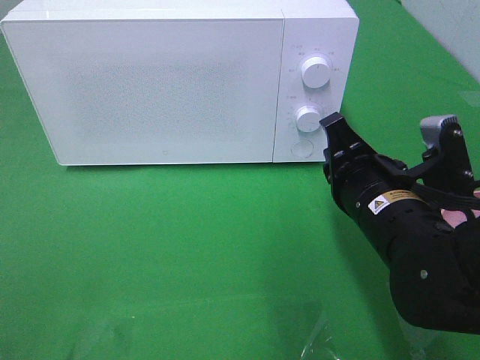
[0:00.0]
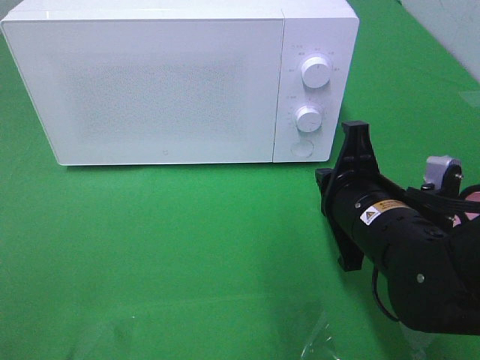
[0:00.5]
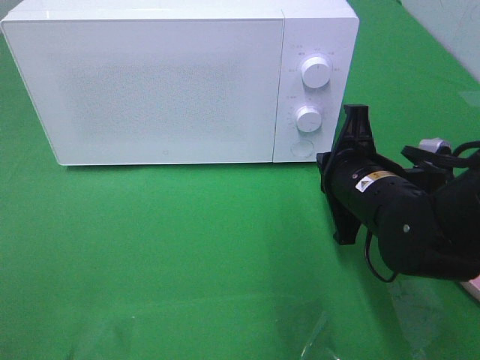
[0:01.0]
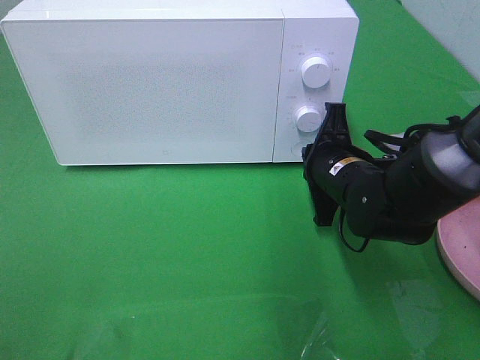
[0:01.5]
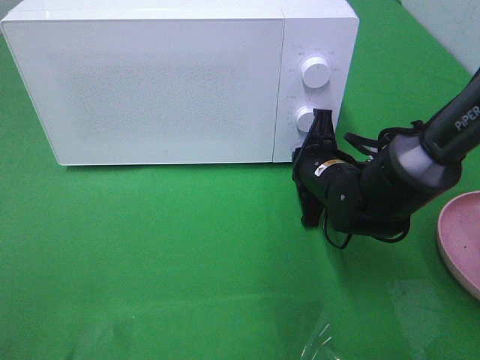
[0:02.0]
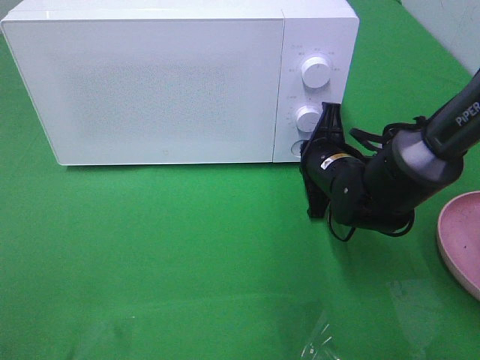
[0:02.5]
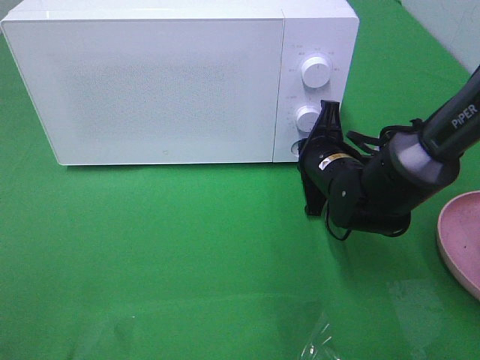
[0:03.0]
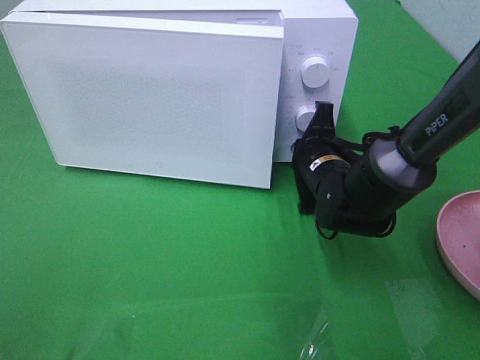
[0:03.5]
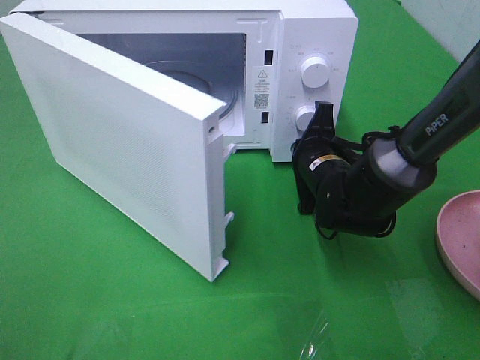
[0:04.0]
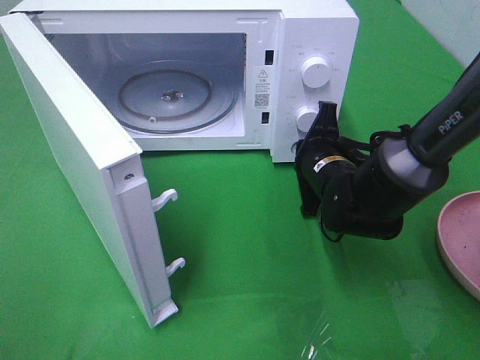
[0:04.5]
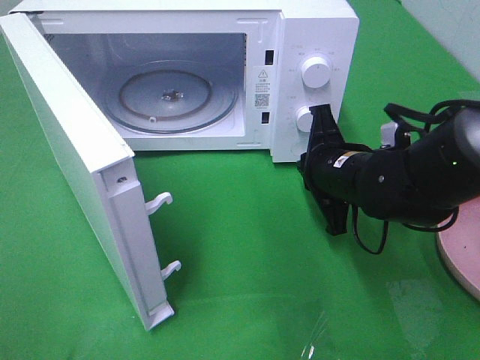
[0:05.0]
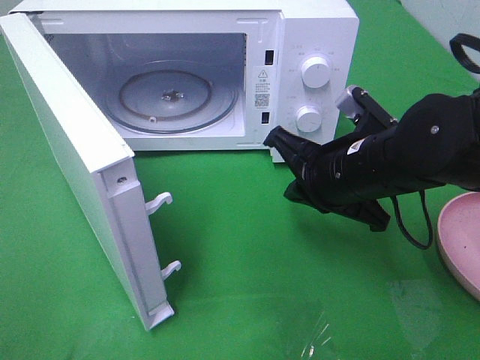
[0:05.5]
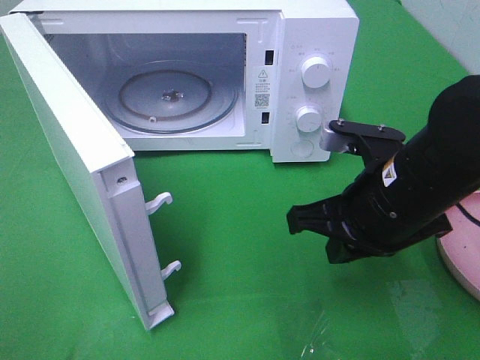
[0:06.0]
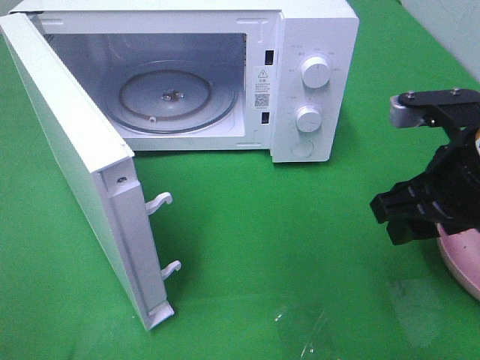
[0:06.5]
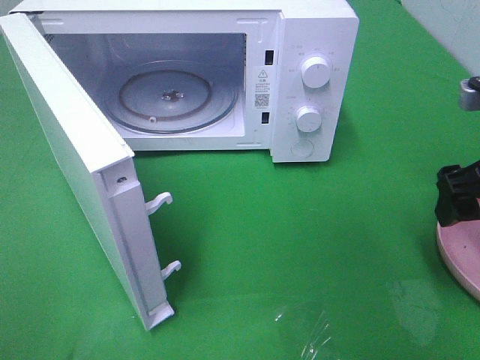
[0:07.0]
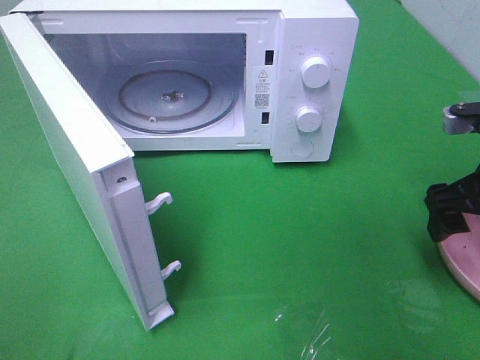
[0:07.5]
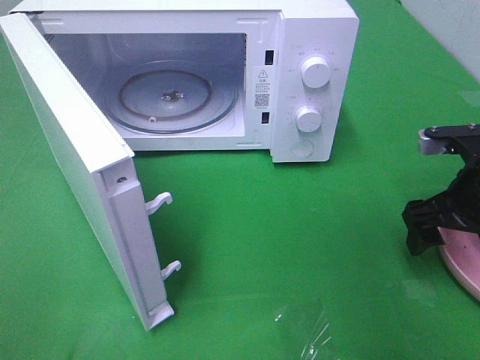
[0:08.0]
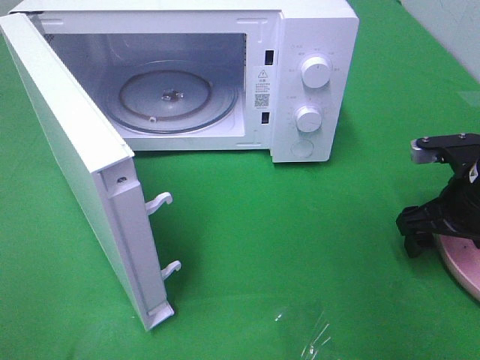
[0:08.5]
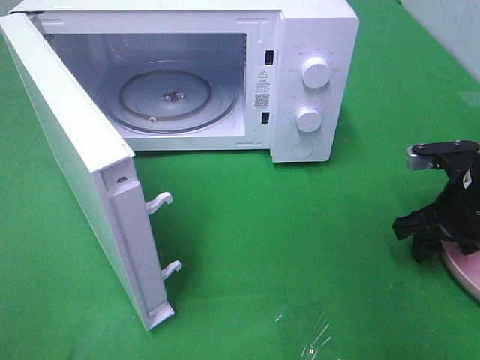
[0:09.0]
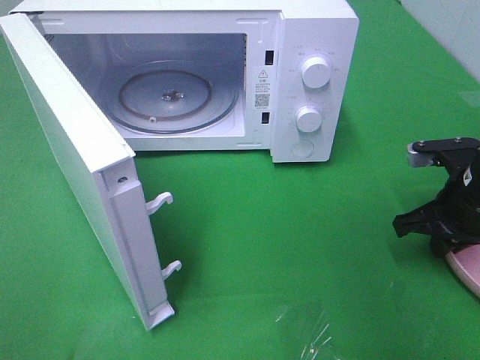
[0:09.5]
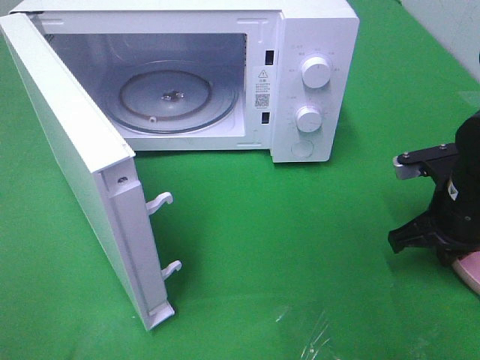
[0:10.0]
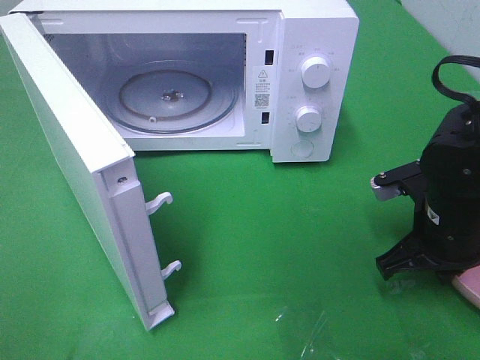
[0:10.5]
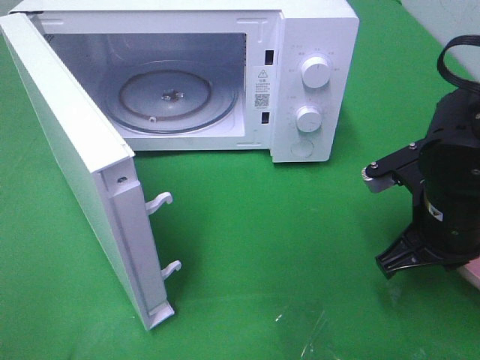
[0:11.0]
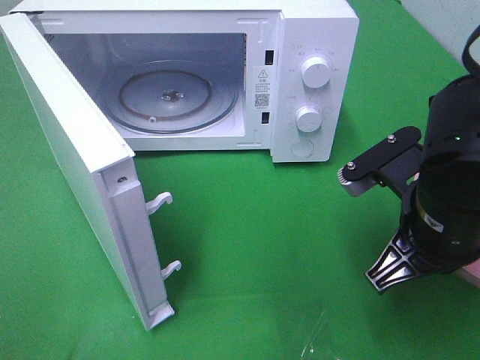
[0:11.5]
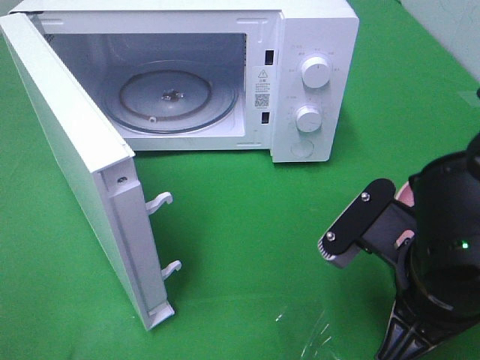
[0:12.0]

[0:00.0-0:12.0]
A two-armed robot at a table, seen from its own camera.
Task of the whole recording: Heat the burger.
Step, 0:00.0 to 0:05.0: Right hand: press the switch.
Step, 0:05.5 to 0:10.0: Right hand: grab the plate with the hamburger.
0:00.0 to 0:02.0: The right gripper goes approximately 15 cm forward and downward.
0:04.0 to 0:06.0: The right gripper travels backward and upward by roughly 15 cm.
0:06.0 to 0:08.0: The right gripper travels to the right by roughly 15 cm, and opens its fingers.
0:08.0 to 0:10.0: The right gripper closes its fingers.
0:10.0 to 0:12.0: The right gripper shifts some 15 cm backward, to the left and upward.

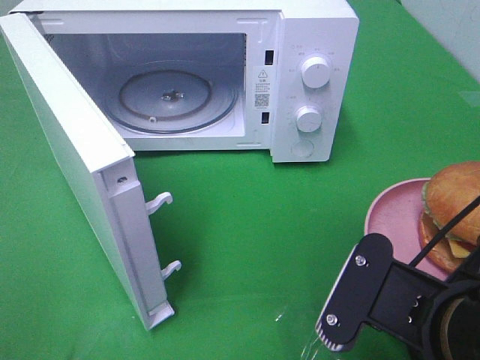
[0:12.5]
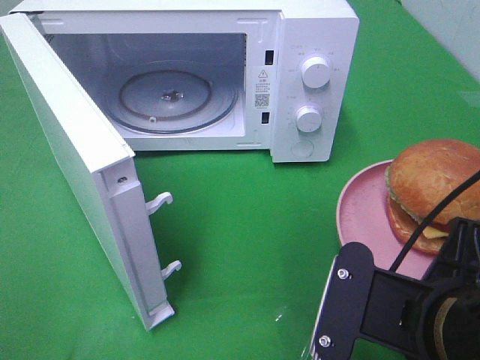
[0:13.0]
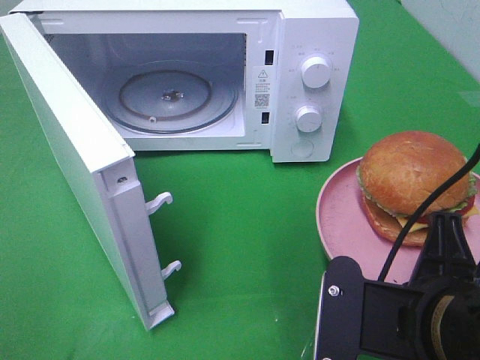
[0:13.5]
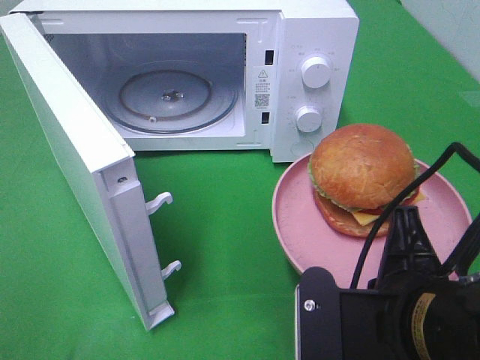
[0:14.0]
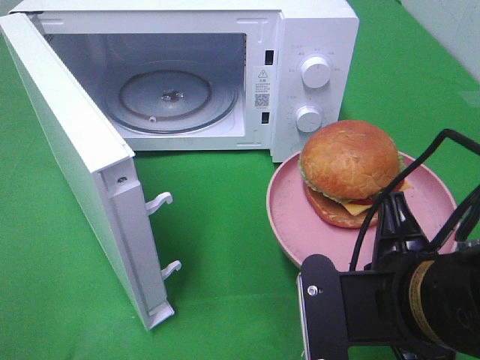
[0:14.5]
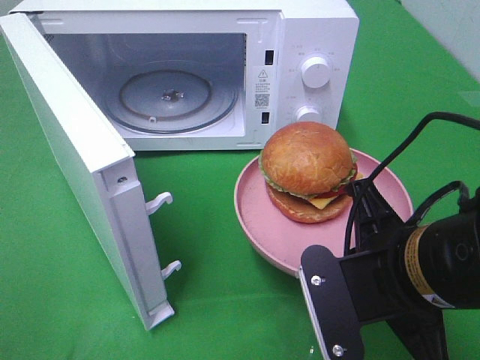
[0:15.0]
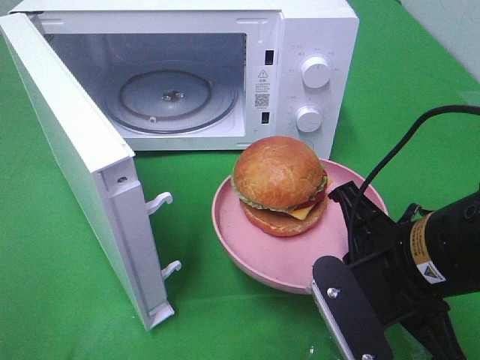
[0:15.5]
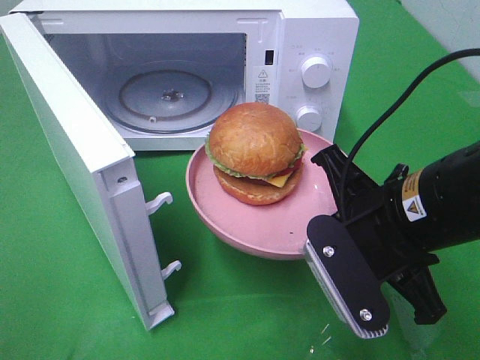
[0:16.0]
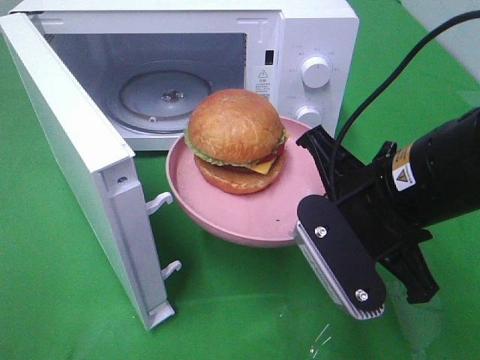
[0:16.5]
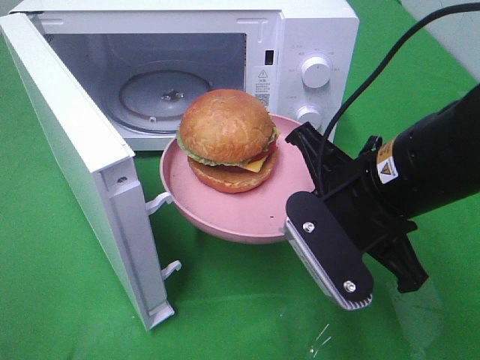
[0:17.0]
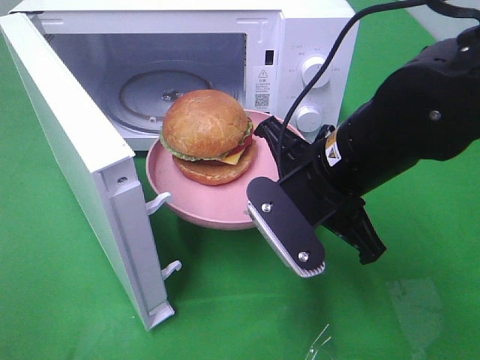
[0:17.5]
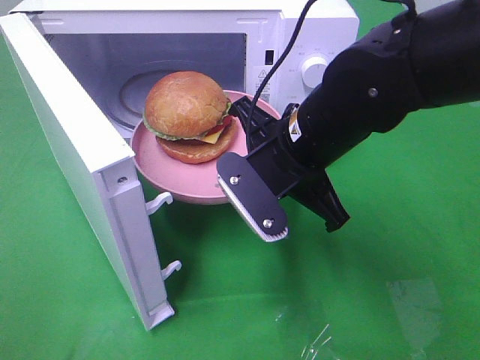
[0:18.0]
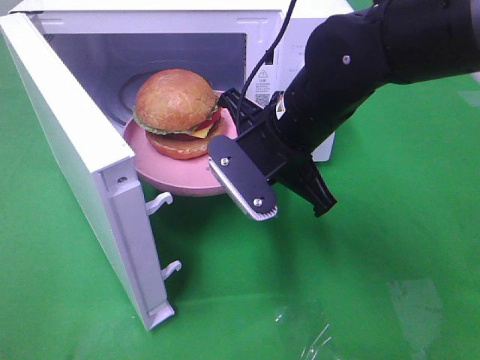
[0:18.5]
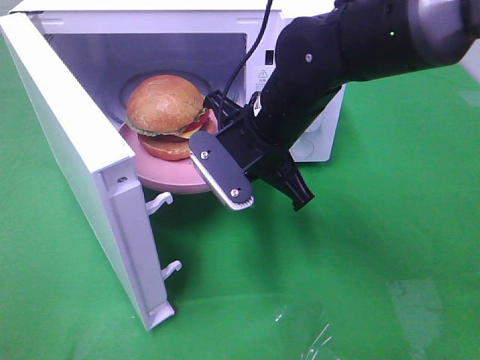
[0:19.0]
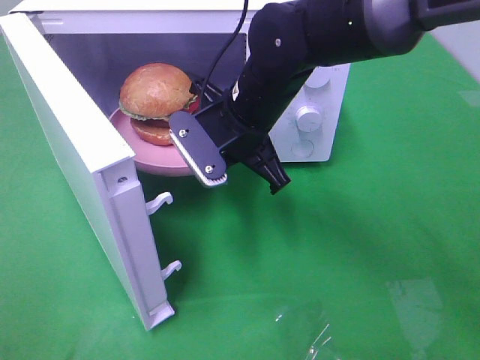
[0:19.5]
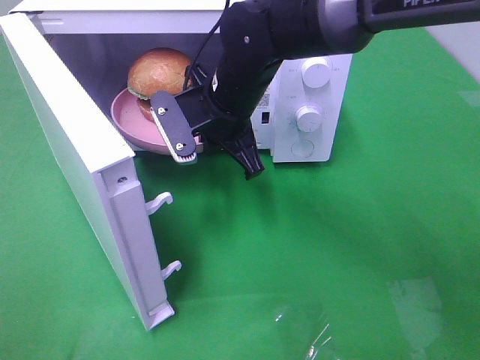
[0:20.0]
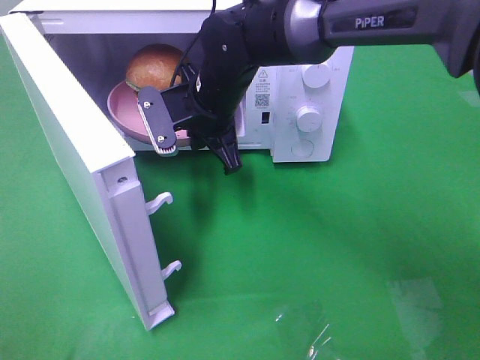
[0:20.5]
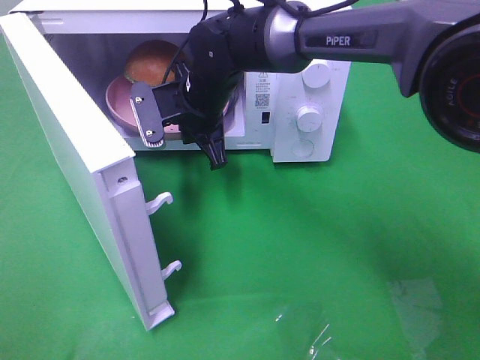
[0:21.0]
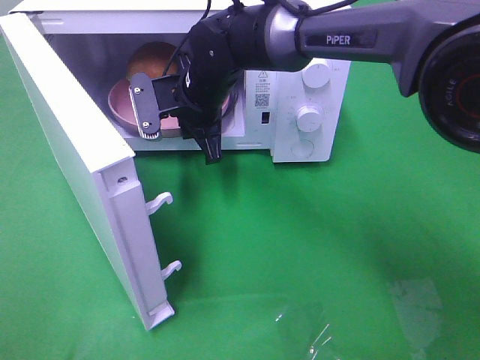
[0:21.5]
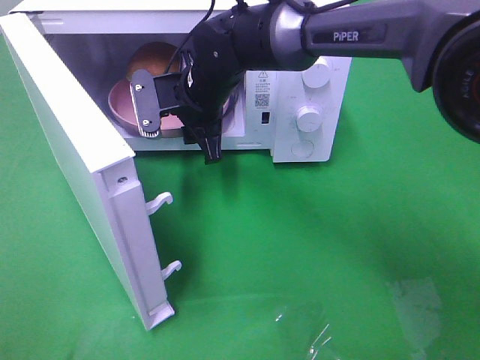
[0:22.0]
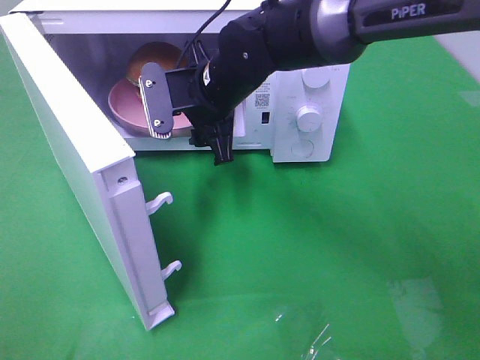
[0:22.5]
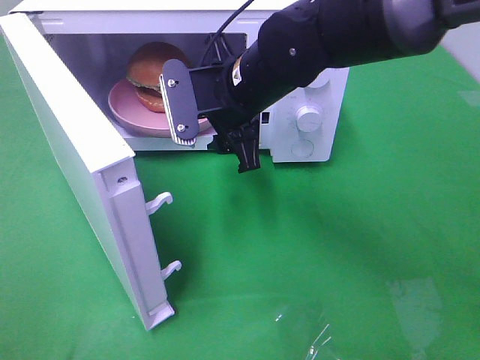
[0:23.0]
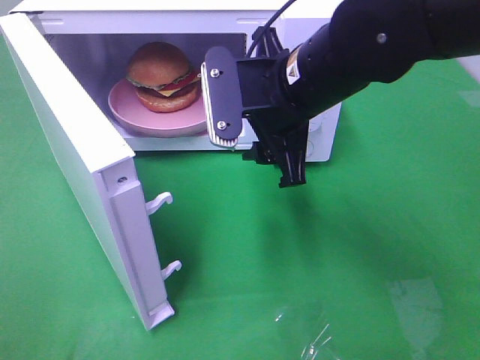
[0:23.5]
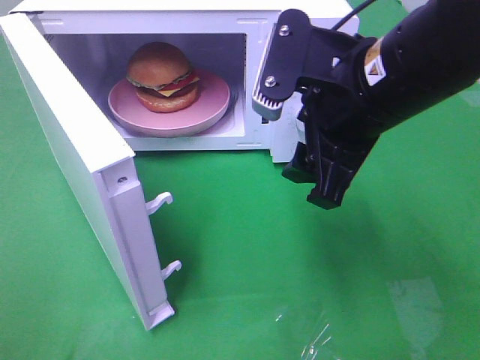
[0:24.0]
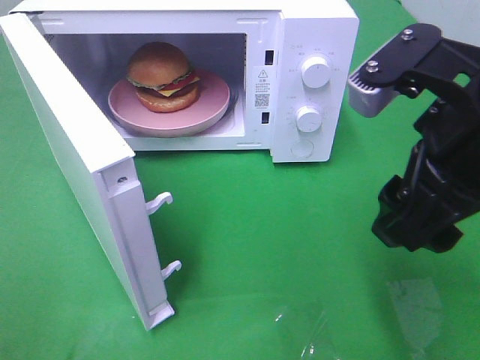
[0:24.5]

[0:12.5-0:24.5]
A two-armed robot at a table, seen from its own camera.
Task of the whole recording: Heat the burger.
Step, 0:12.5 to 0:22.0: Right hand: place the plate in the microwave.
0:14.5 to 0:16.5: The right gripper goes roughly 10 cm forward.
0:16.5 to 0:18.5: The right gripper heads forward and to the left, covering some 10 cm.
0:18.5 to 0:20.5: The right gripper moves forward and to the left, roughly 15 cm.
0:20.5 to 0:22.5: The right gripper opens its fingers.
0:22.5 to 0:24.5: The right gripper travels backward, to the right and upward by roughly 30 cm.

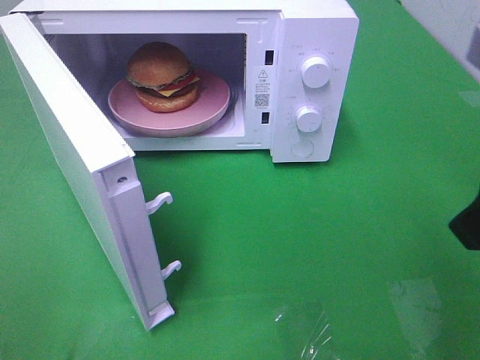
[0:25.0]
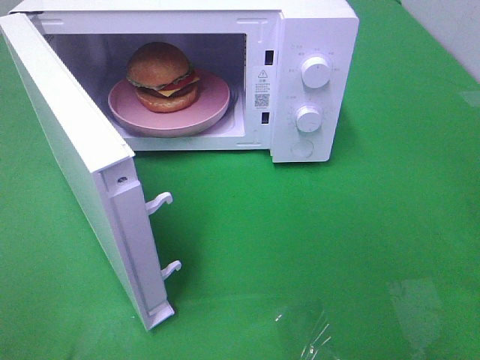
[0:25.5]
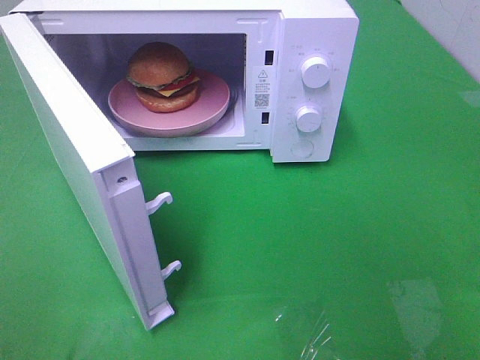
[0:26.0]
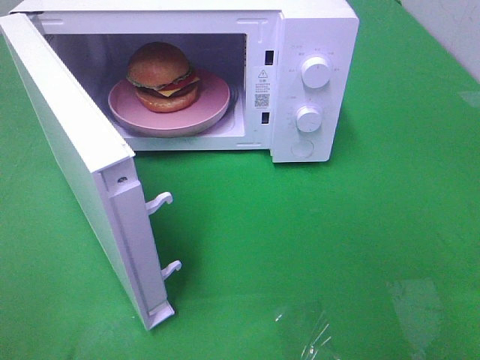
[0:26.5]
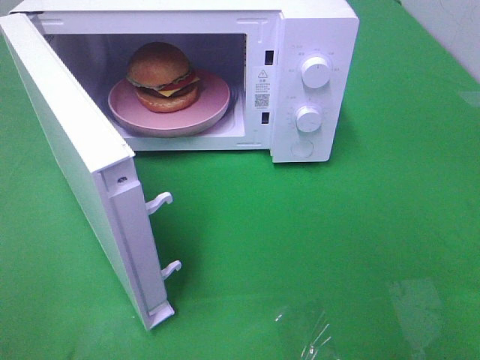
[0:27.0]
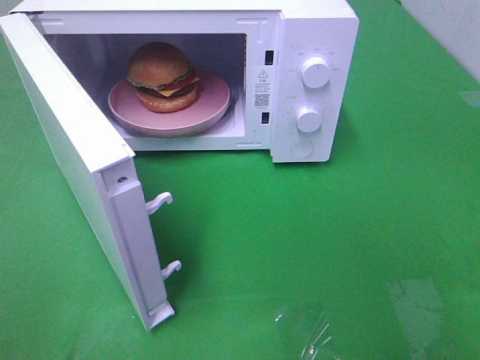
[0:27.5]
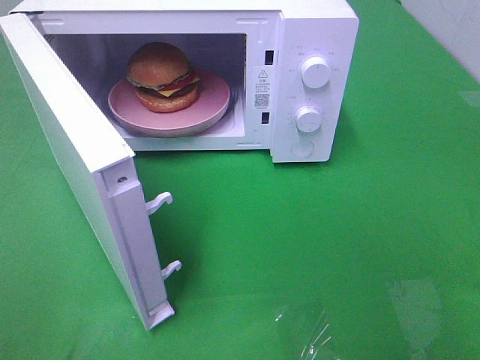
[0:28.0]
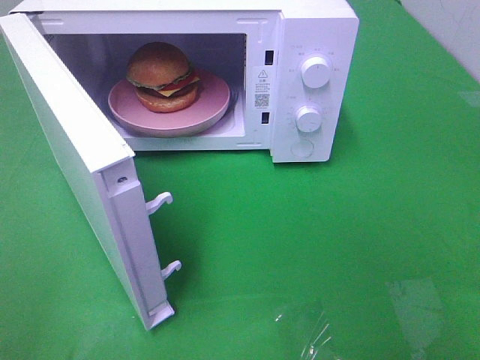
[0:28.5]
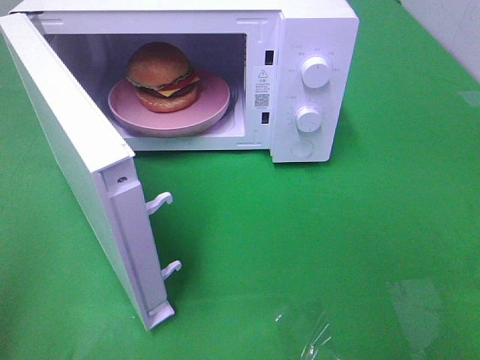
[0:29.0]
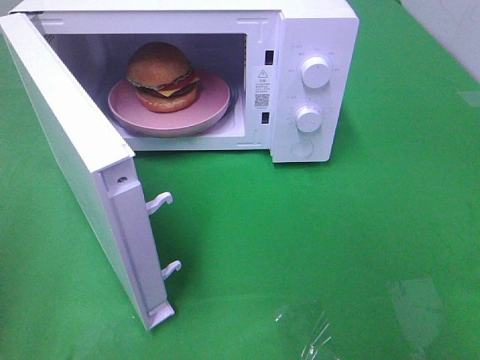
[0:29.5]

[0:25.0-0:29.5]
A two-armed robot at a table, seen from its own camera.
Task of the whole recording: Heat the burger.
0:25.0 to 0:27.0: The right gripper goes some 15 cm backward and to the right.
